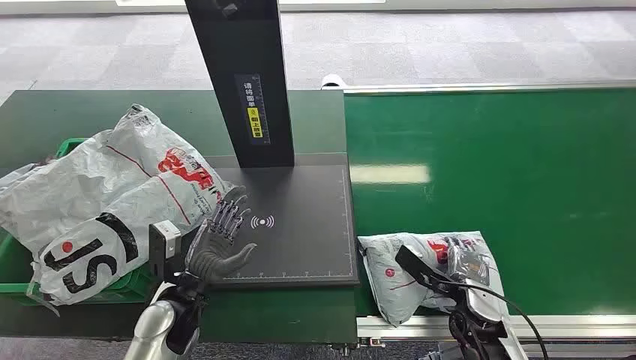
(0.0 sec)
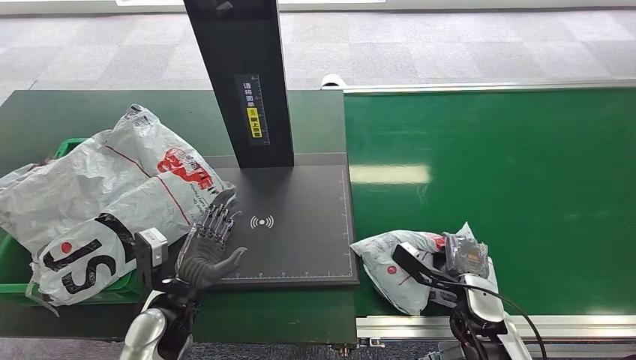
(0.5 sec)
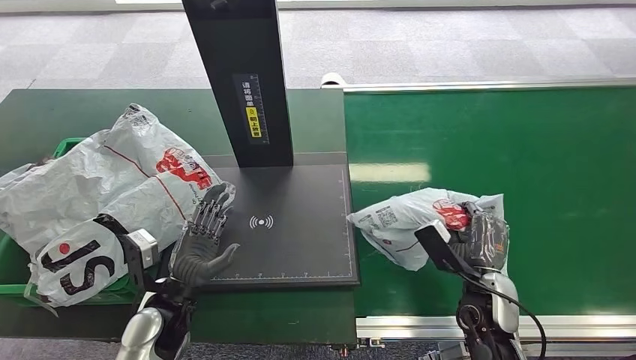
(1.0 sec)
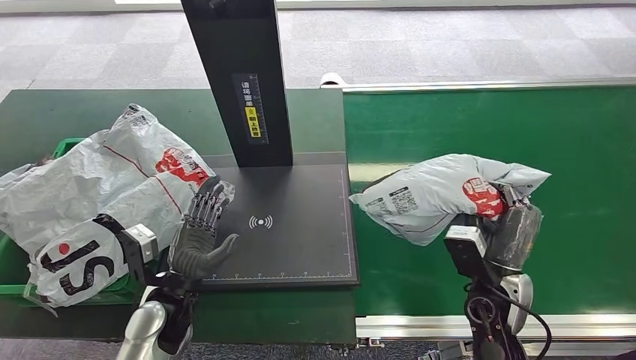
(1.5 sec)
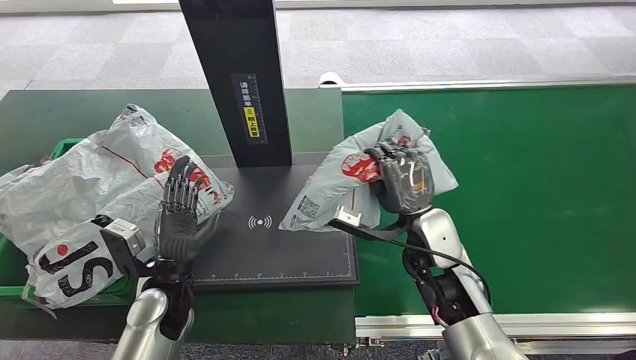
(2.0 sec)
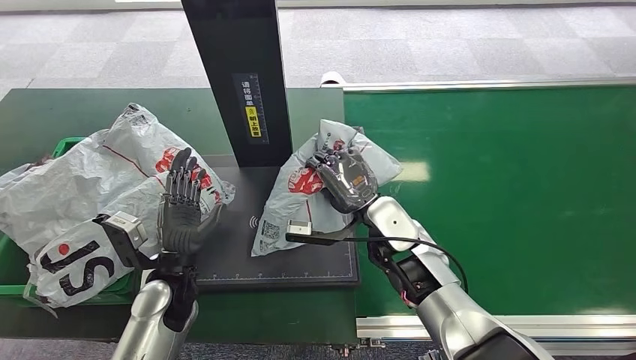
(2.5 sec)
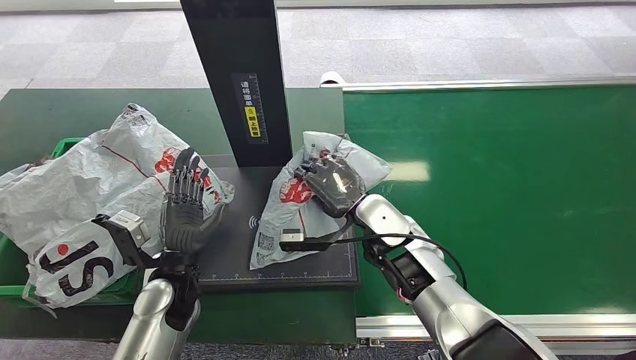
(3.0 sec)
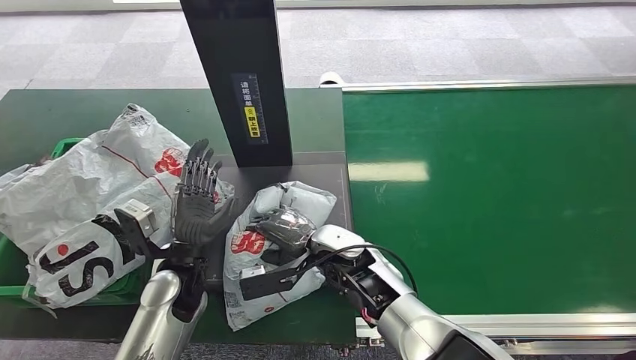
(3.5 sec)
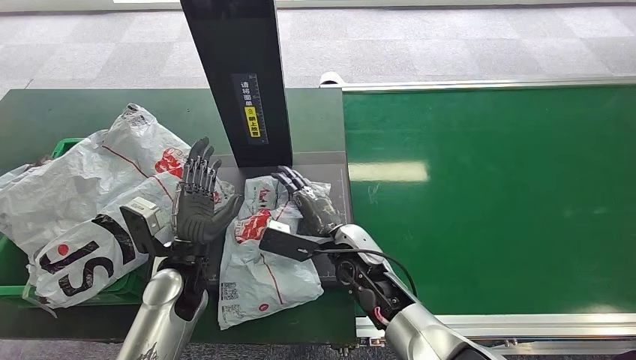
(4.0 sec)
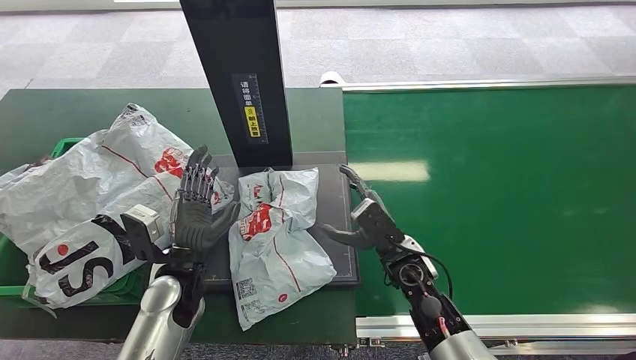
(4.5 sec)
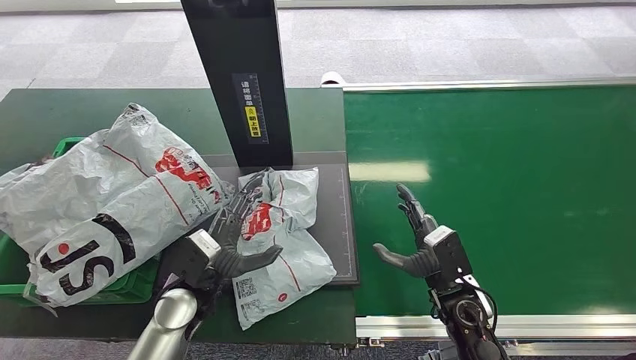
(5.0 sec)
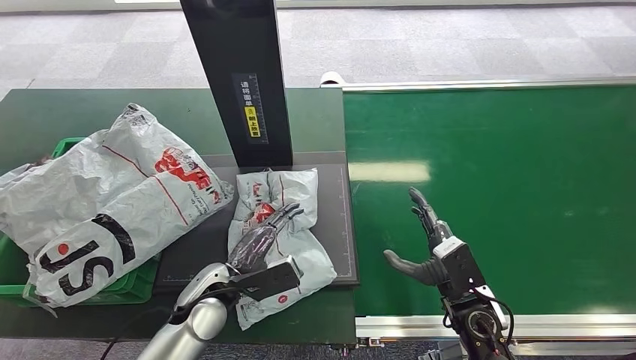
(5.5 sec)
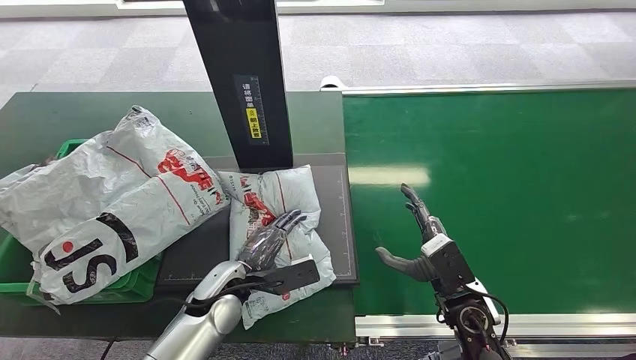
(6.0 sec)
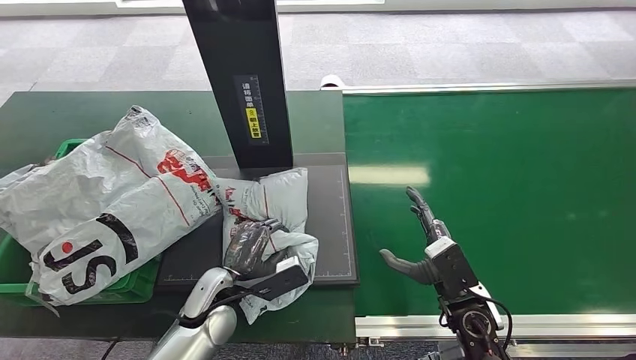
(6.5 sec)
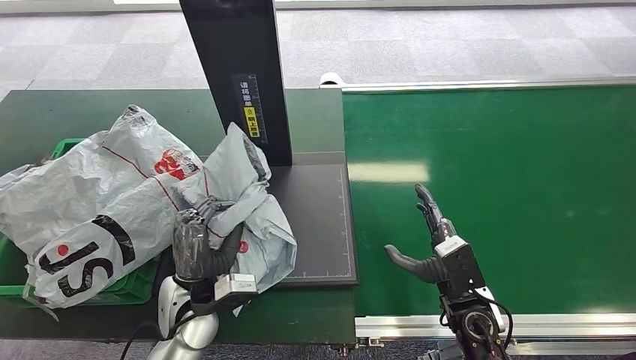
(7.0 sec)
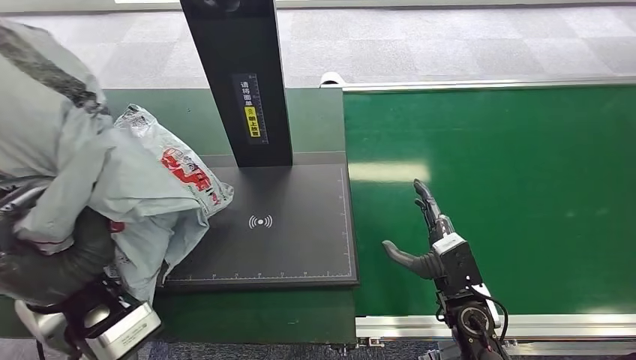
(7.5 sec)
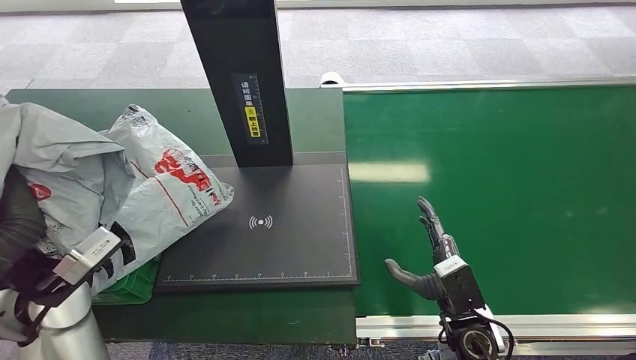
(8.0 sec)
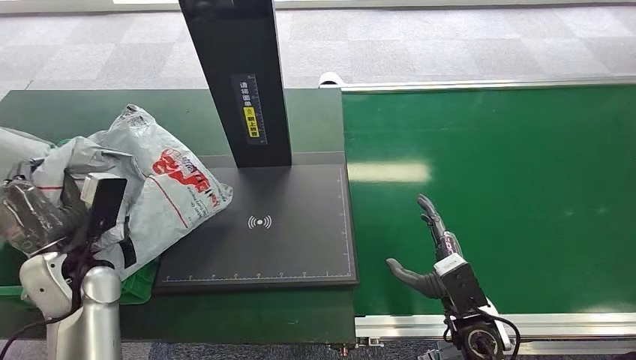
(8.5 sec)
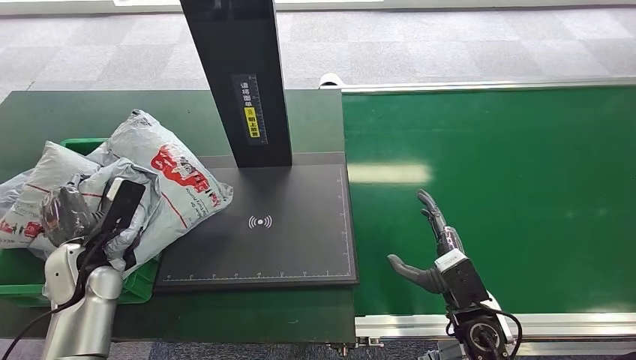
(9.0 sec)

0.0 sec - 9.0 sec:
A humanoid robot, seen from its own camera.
Step, 0.0 sec - 1.0 sec: Pick up the package from the conveyor belt.
Step, 1.5 sec - 4.0 sec: Place the package onto the inbound machine.
Step, 4.5 sec - 7.5 sec: Pick up the package from the inbound machine.
Step, 8.0 sec - 9.0 sec: Place the package into the parcel locker.
4.5 sec - 7.0 sec: The right hand moves to the right and backward, about 10 cm.

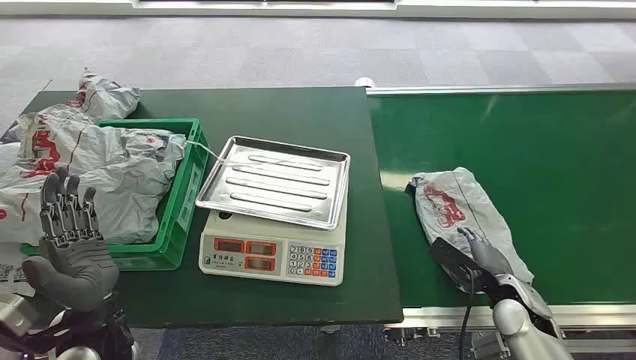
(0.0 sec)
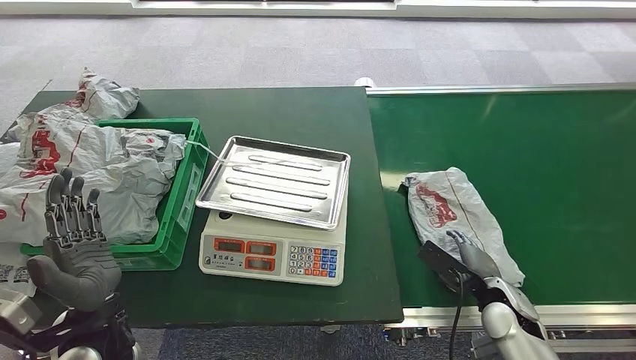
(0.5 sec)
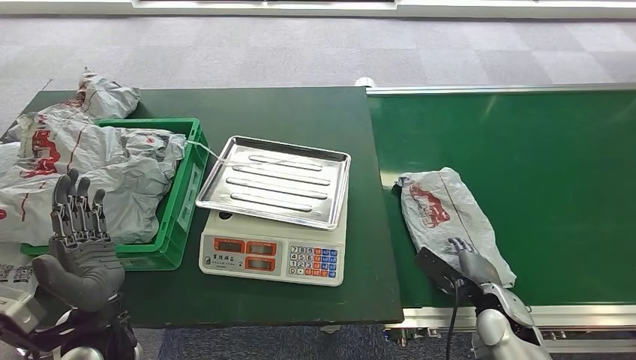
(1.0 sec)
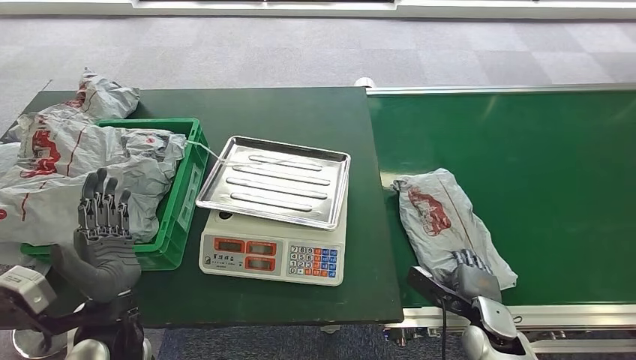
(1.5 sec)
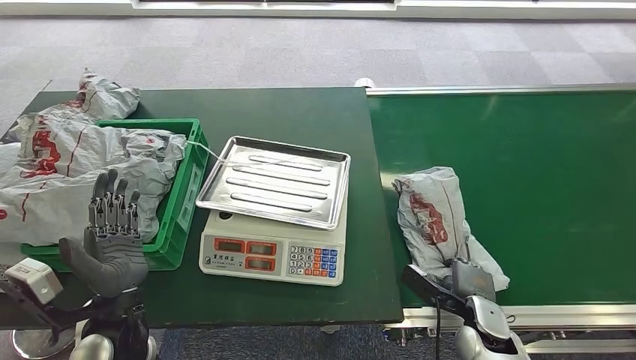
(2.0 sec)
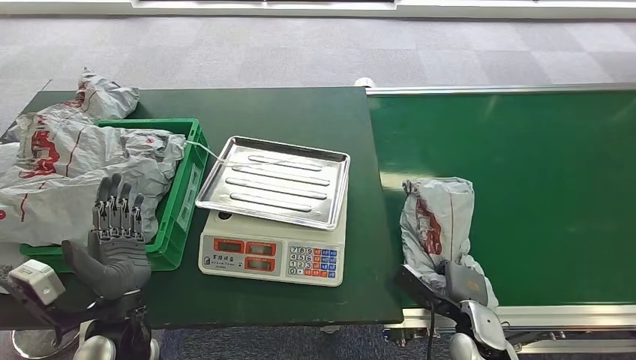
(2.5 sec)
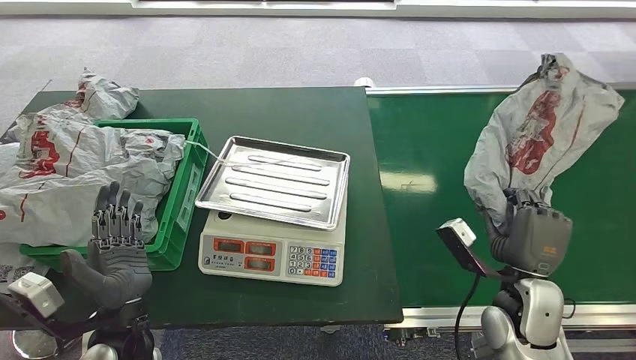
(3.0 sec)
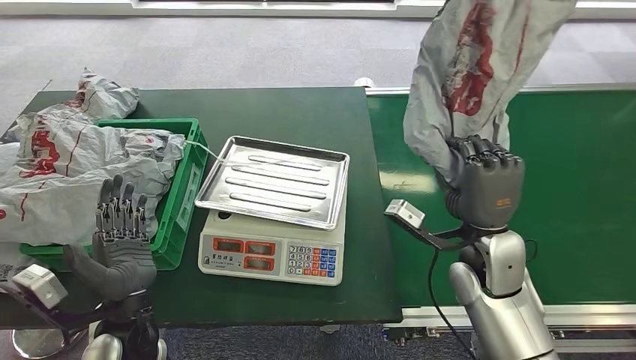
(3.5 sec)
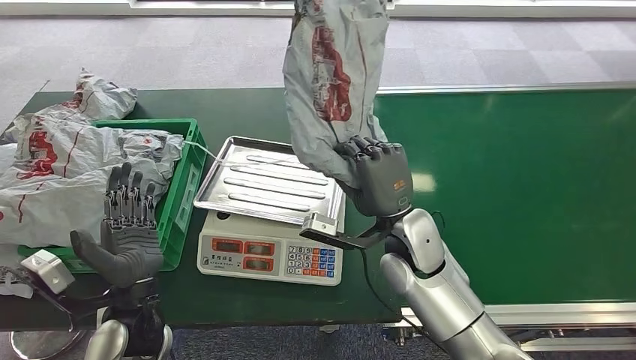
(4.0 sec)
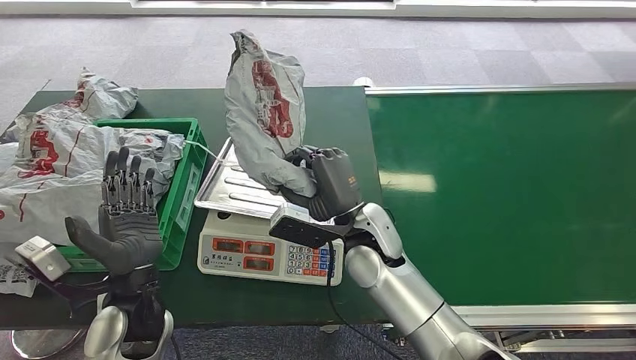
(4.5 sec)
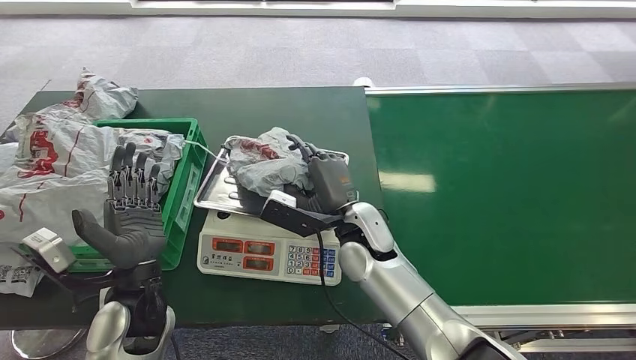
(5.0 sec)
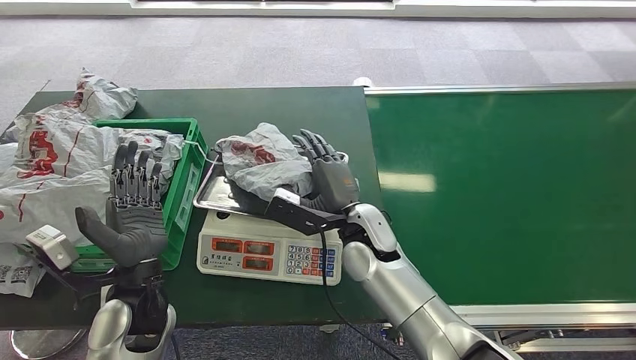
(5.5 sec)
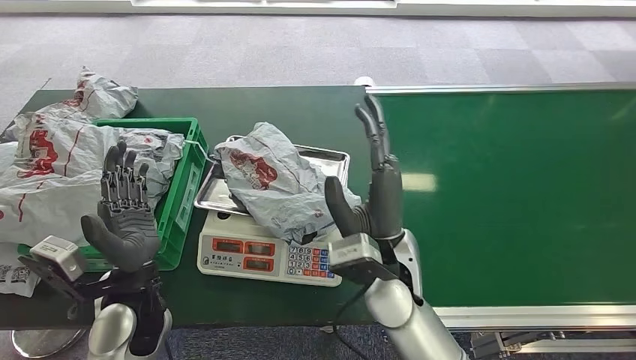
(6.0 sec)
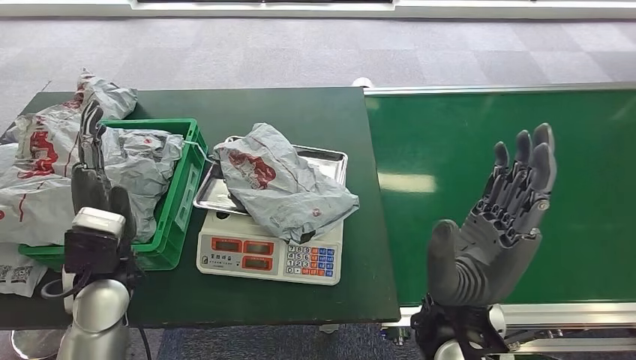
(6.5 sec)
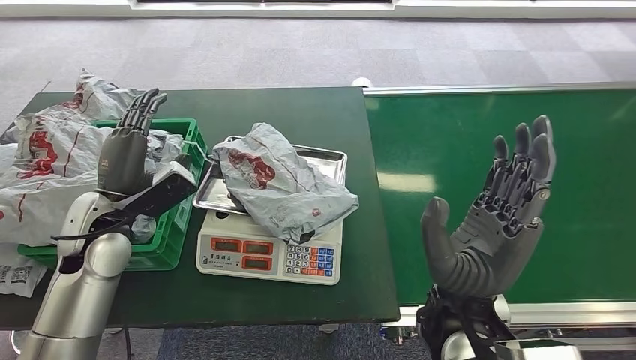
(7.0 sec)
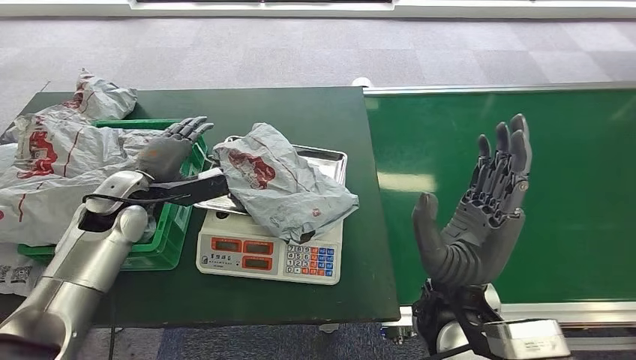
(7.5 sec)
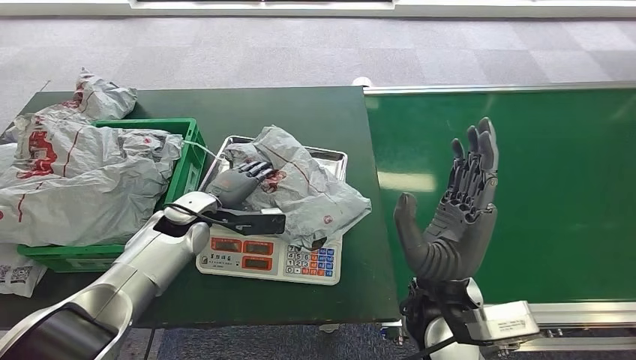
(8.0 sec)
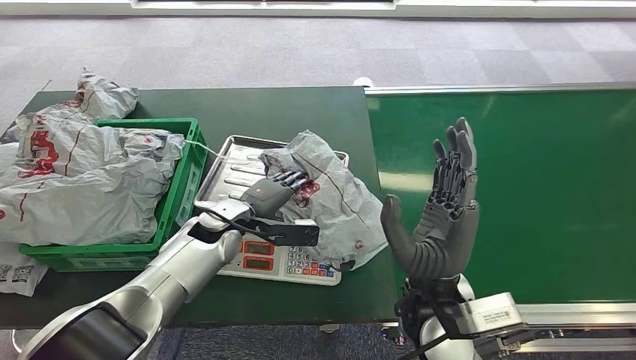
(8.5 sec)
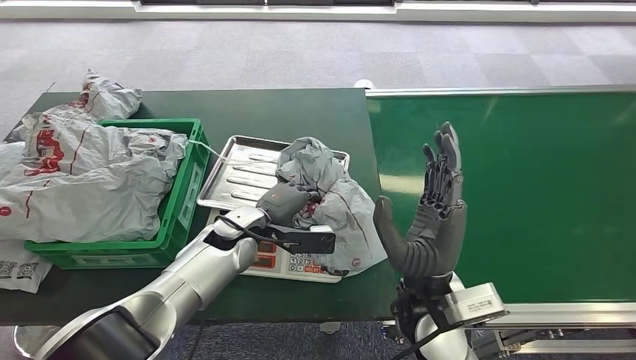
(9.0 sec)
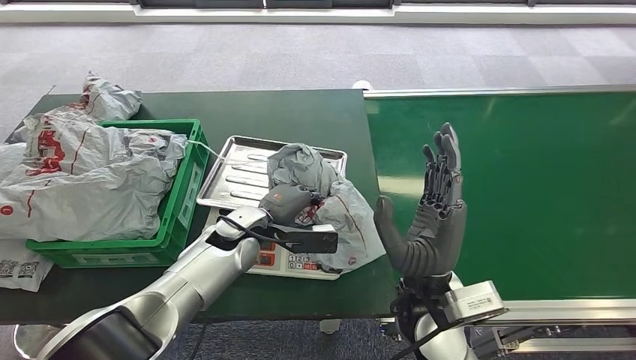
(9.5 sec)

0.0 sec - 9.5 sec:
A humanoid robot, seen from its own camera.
Step, 0.0 sec - 3.5 sec: Pick up the package from the conveyor belt.
Step, 4.0 sec - 6.0 sec: Place the package onto the inbound machine.

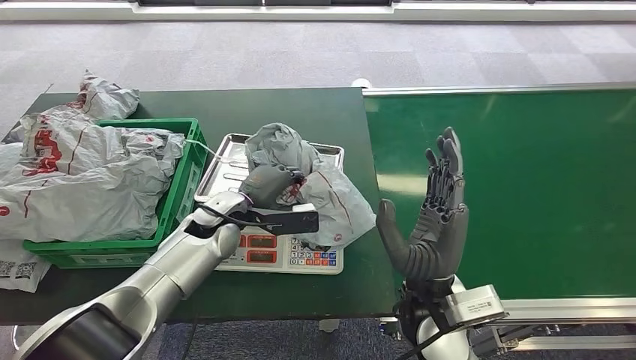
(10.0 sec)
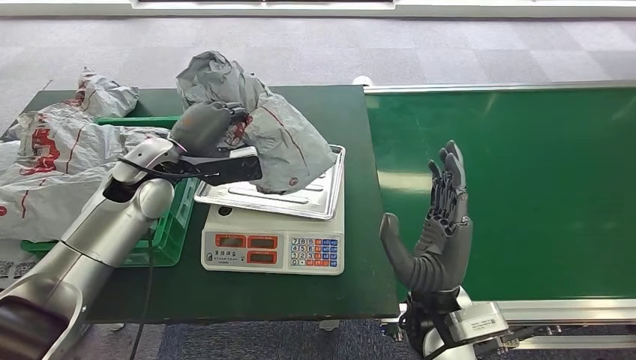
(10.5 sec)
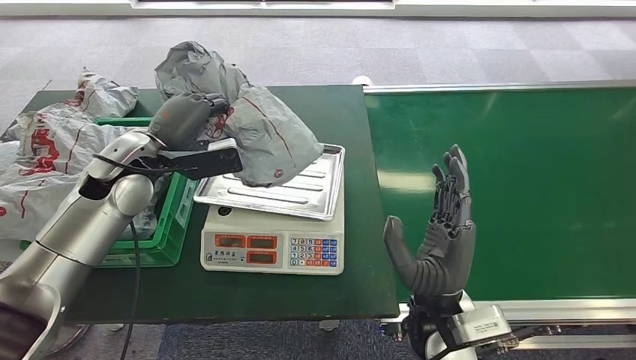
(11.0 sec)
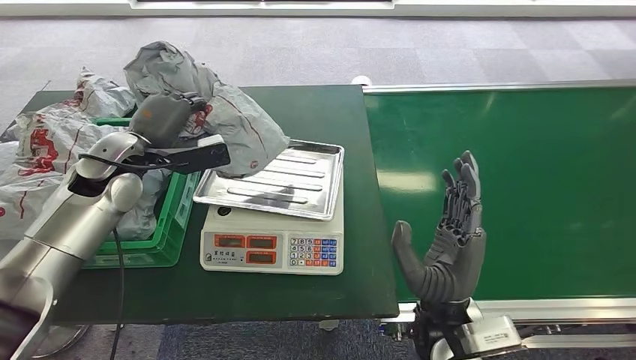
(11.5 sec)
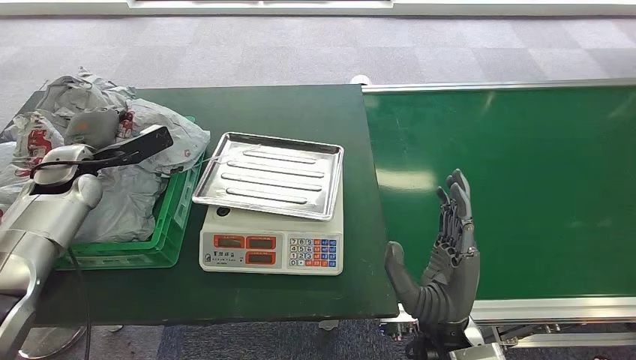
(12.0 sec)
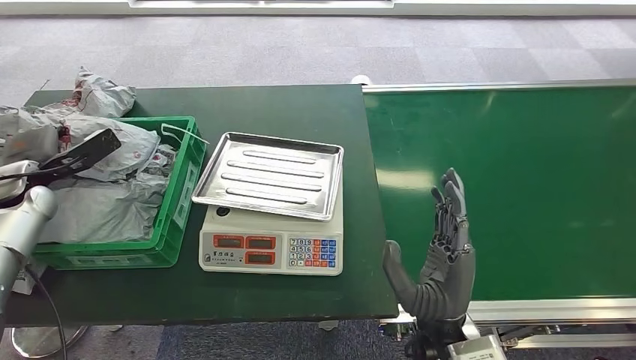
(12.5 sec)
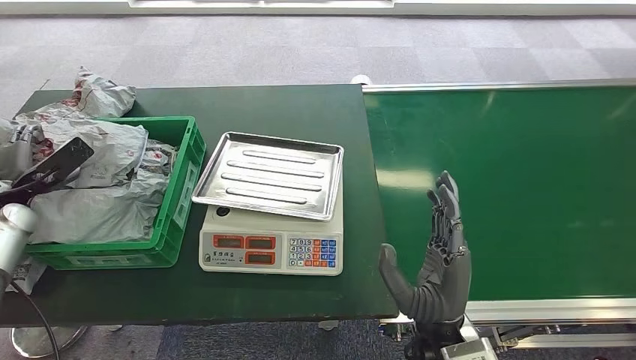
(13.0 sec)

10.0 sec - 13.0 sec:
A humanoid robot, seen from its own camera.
Step, 11.5 sec - 13.0 sec: Place the package into the parcel locker.
